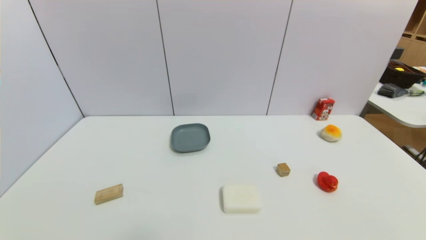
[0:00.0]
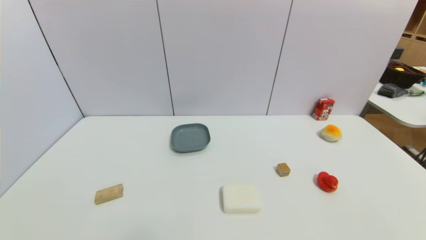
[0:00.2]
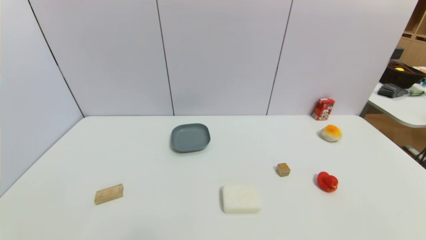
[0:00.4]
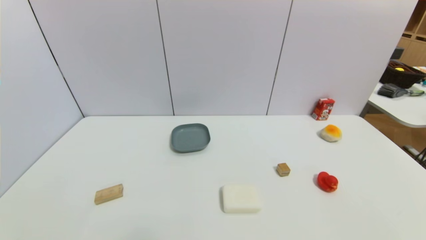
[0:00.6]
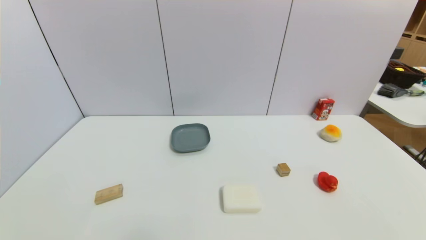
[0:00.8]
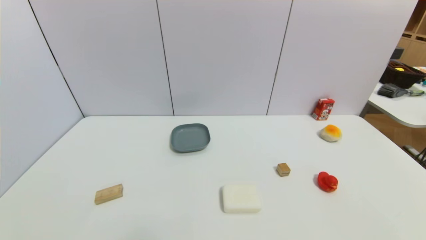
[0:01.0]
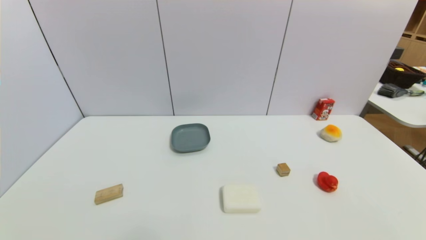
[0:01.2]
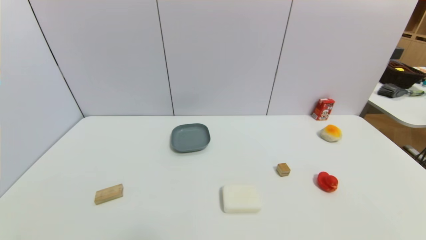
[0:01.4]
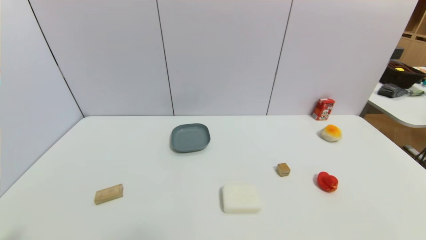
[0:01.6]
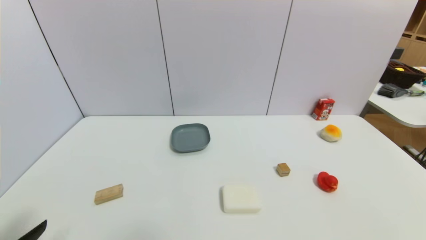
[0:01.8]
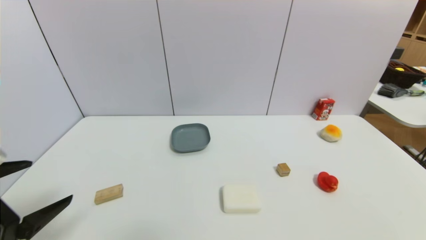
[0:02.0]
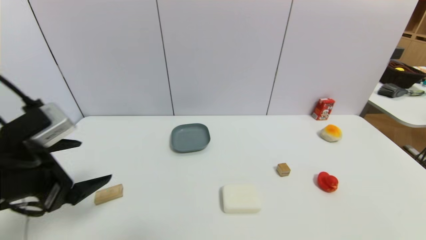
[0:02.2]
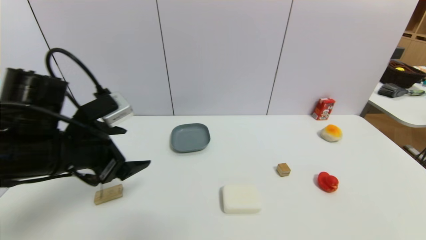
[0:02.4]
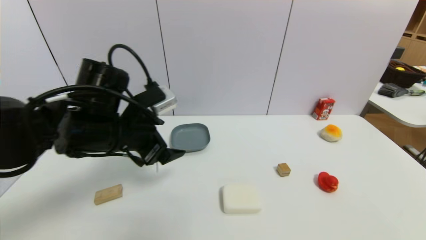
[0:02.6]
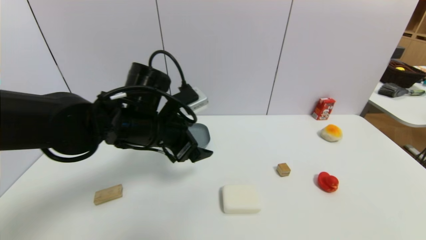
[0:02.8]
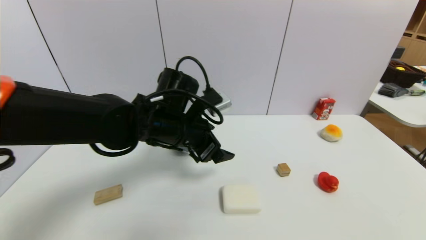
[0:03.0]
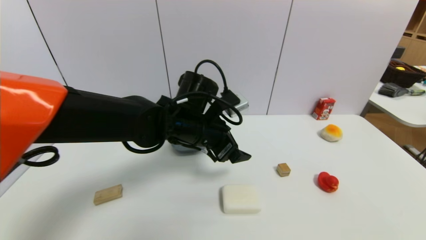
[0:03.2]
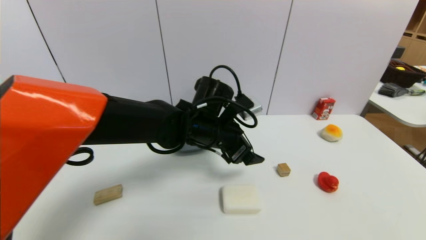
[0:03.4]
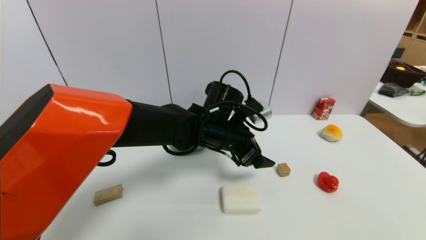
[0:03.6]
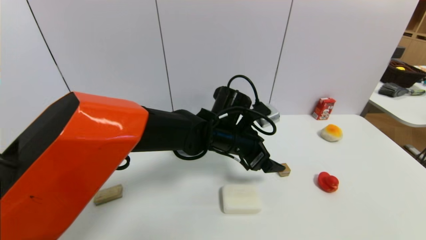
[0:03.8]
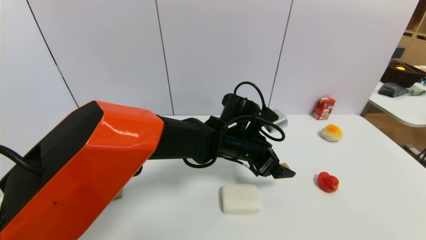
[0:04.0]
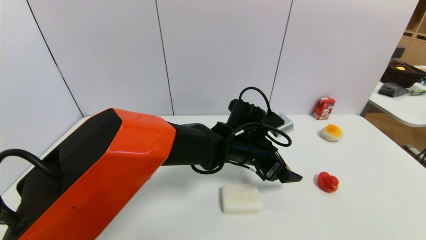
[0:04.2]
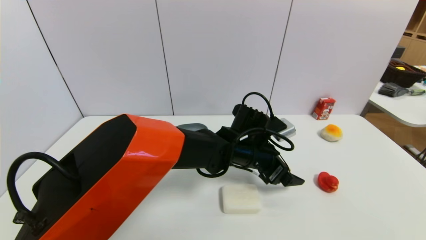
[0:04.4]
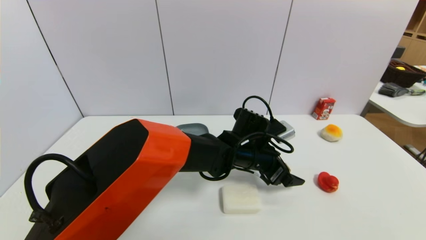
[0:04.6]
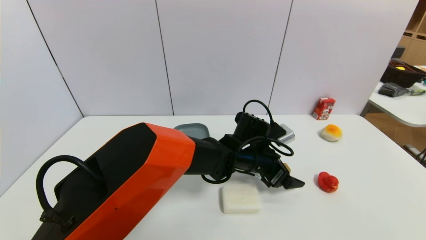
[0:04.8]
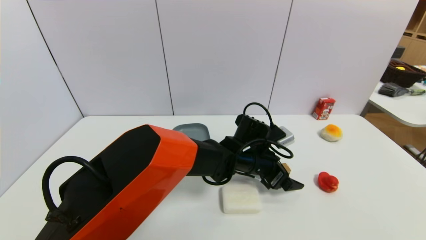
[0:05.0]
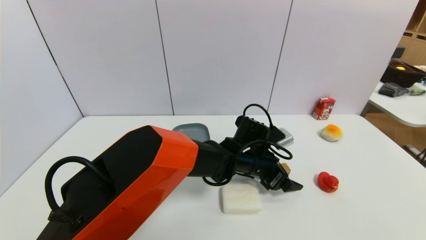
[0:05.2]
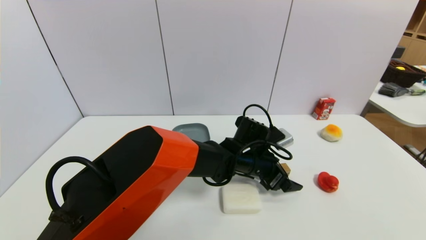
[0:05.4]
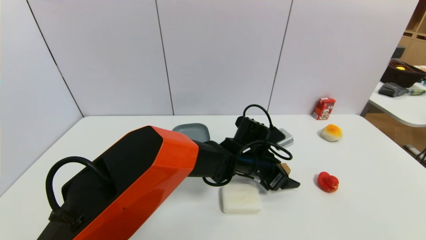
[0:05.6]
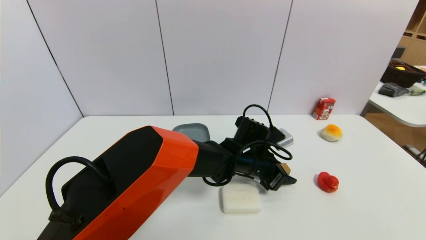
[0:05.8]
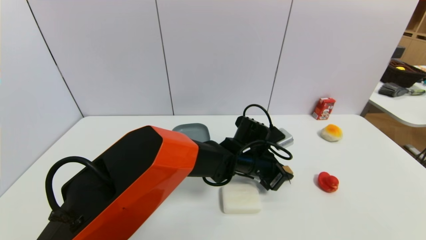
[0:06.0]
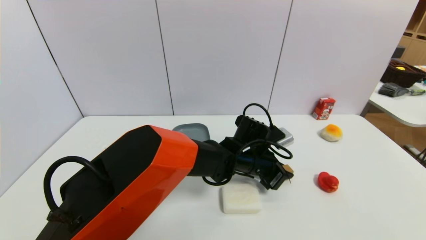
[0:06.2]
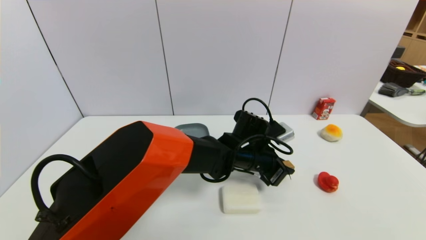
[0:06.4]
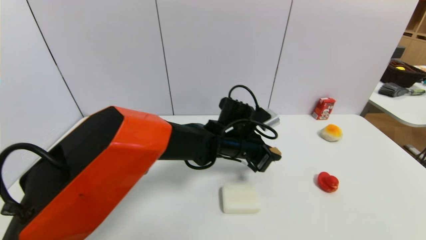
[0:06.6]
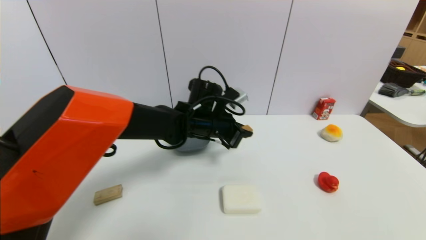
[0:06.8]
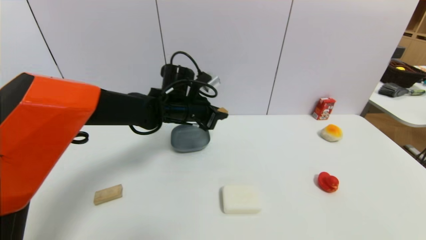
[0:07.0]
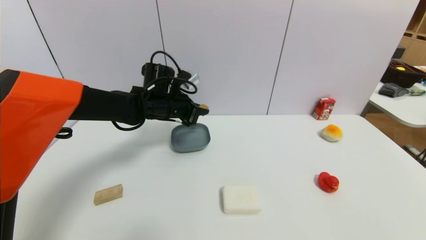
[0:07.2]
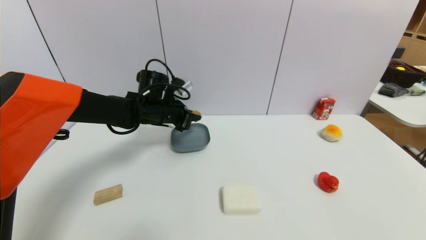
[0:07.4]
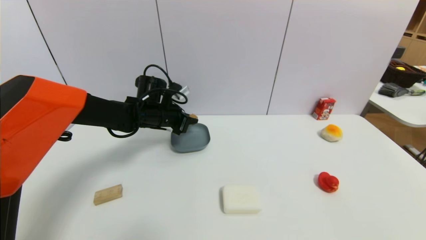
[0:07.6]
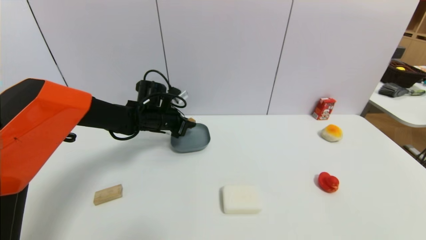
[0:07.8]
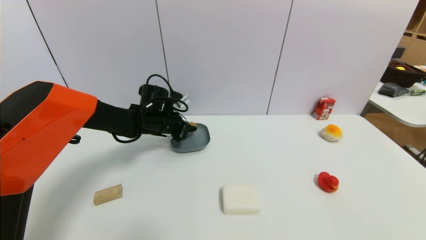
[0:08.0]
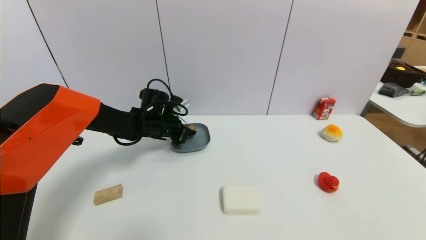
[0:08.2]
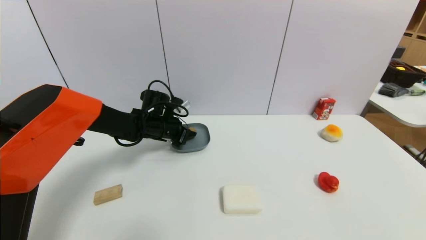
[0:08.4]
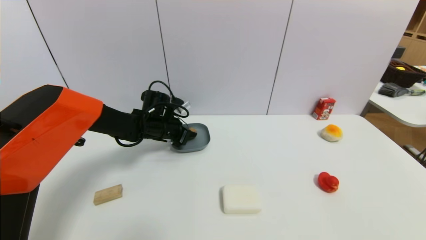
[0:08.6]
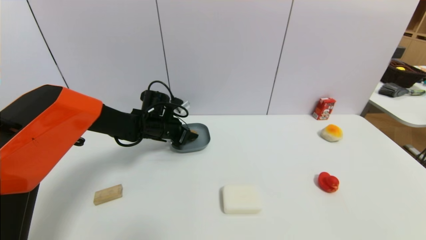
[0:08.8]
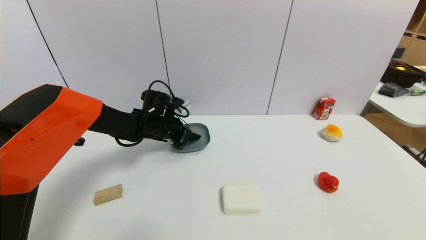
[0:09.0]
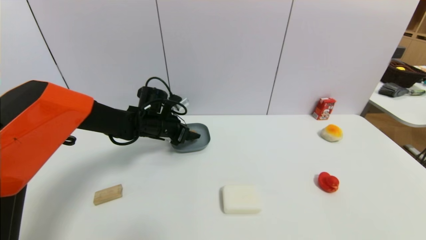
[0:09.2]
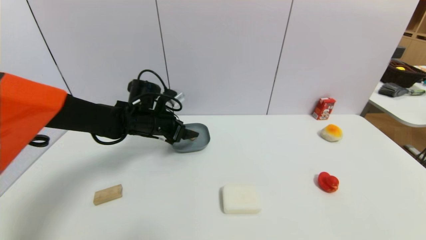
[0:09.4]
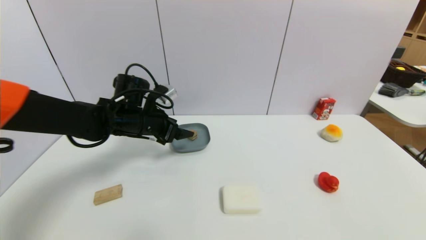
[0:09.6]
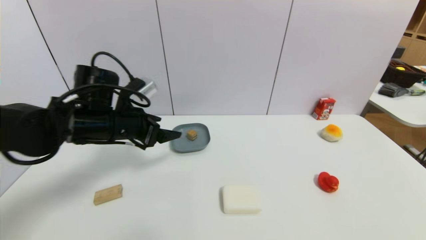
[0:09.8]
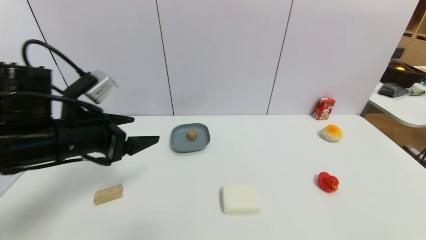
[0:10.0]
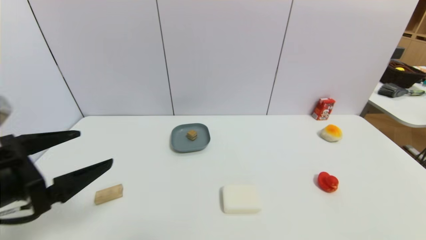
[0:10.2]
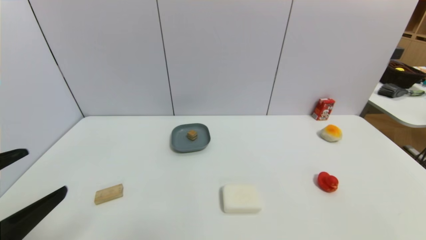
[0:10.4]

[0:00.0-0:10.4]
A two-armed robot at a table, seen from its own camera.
Task of the whole recording: use a gripper to pick the target object and place on the dish.
Step, 0:00.0 to 0:06.0: Grasp the square wooden block with the left gripper.
Step, 0:06.2 to 0:09.2: Place the square wooden block on the dish with the left gripper.
0:01.4 to 0:03.0: The left gripper heads forward and to the right, covering approximately 40 cm.
0:03.0 to 0:04.4: The left gripper heads to the right and downward, covering approximately 15 cm.
0:04.4 to 0:06.0: The left gripper closes.
0:06.0 to 0:07.4: The left gripper heads to the left, covering some 20 cm.
0:07.4 to 0:09.0: The left gripper travels downward by approximately 5 cm, and opens.
0:09.0 to 0:10.4: The left gripper is displaced backward by approximately 35 cm, and opens.

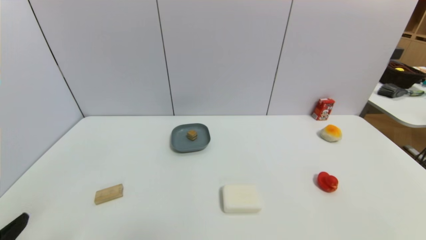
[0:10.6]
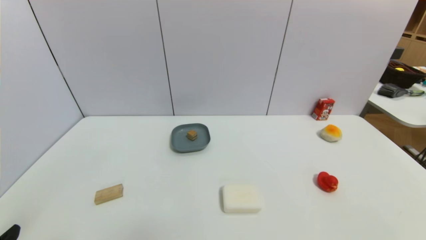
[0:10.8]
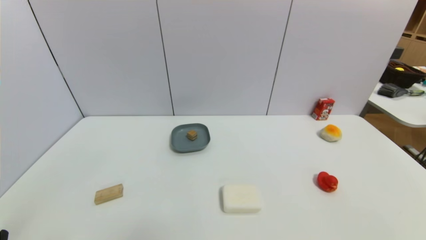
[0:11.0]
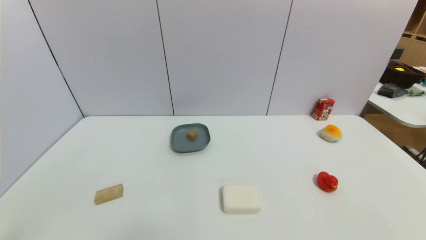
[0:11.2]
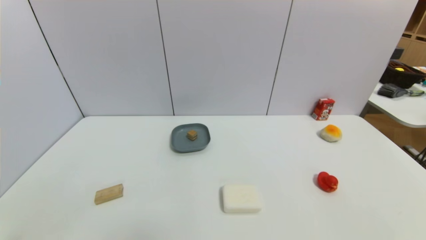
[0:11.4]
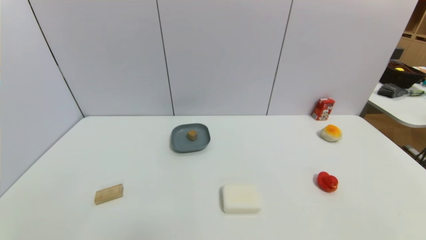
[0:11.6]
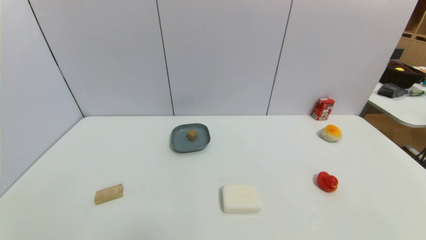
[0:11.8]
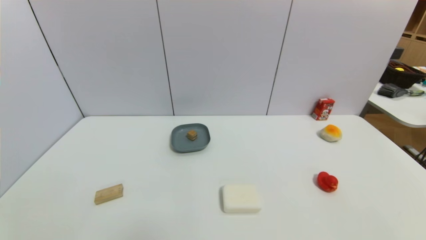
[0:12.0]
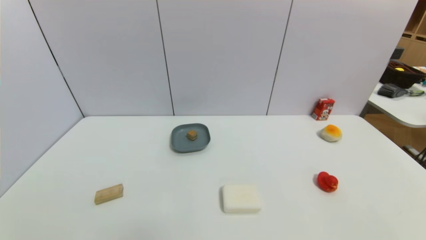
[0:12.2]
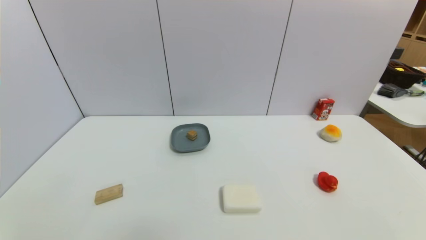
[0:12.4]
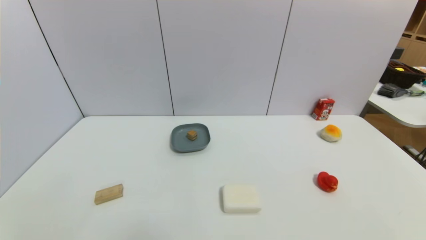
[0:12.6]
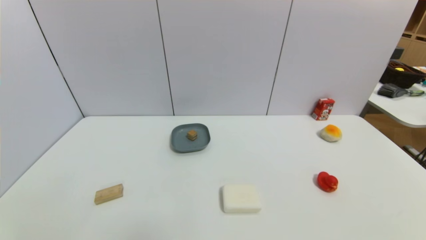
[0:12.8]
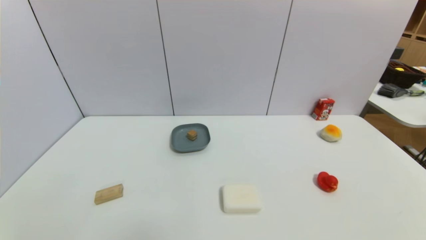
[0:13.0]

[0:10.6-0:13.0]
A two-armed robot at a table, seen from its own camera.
Task of the whole recording: use a gripper to pick the target object and place on the dish.
0:11.8 to 0:13.0: Both grippers stay about where they are.
